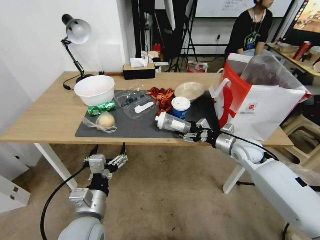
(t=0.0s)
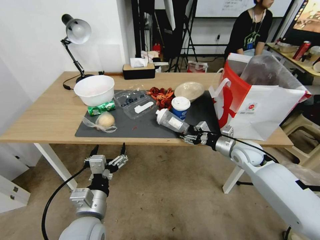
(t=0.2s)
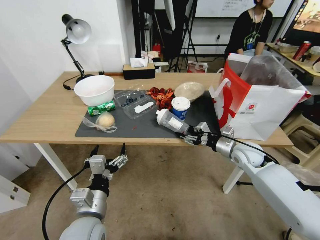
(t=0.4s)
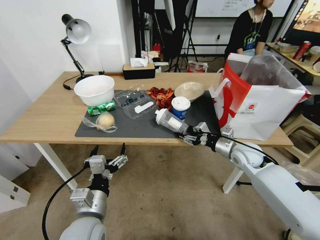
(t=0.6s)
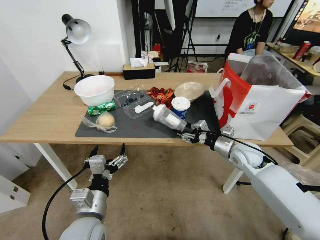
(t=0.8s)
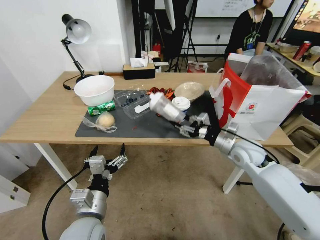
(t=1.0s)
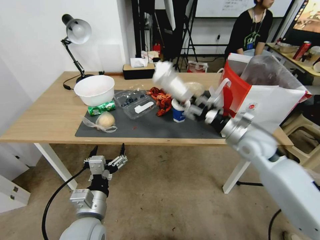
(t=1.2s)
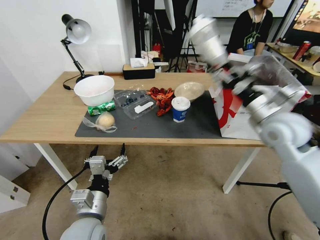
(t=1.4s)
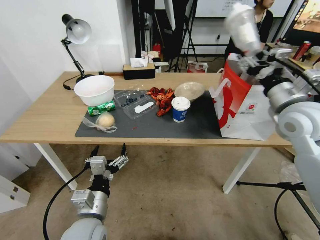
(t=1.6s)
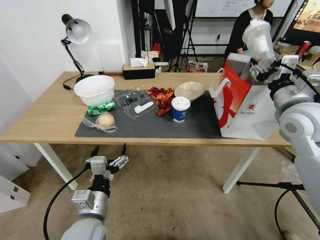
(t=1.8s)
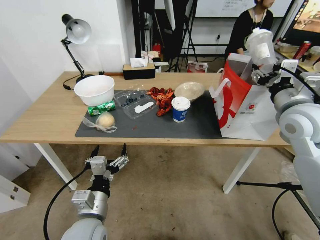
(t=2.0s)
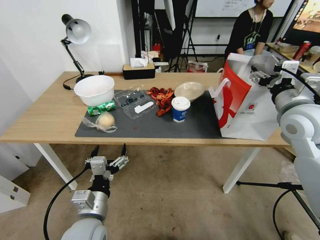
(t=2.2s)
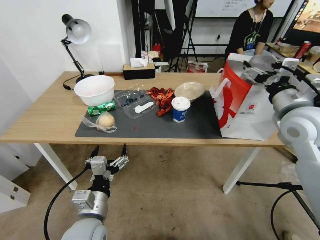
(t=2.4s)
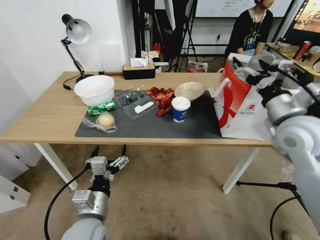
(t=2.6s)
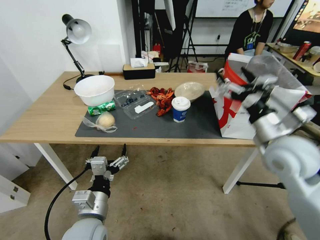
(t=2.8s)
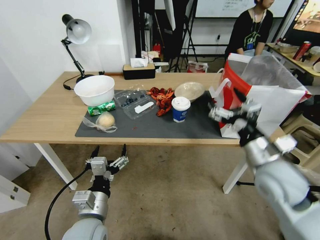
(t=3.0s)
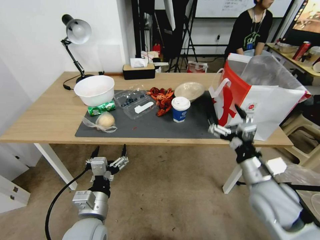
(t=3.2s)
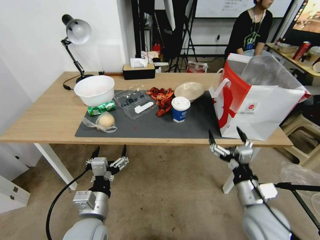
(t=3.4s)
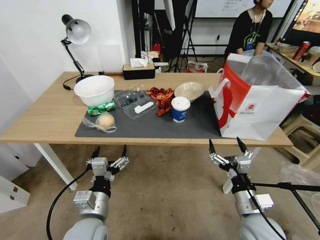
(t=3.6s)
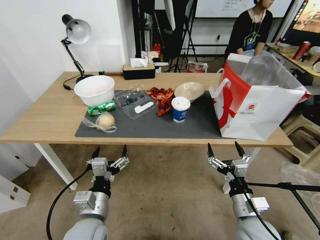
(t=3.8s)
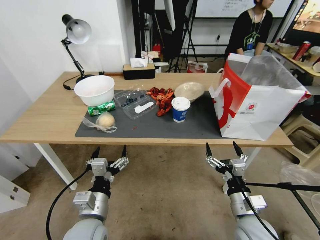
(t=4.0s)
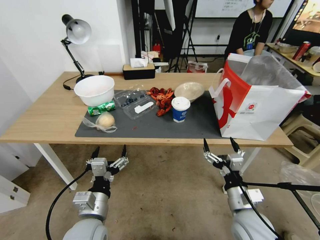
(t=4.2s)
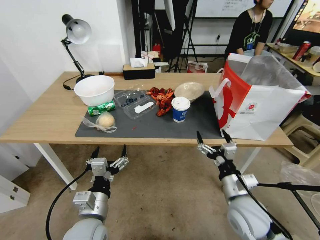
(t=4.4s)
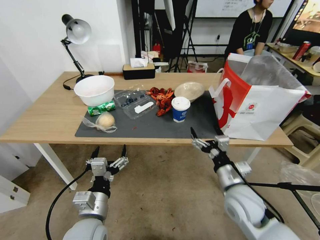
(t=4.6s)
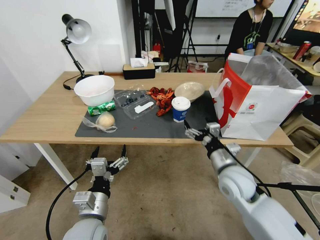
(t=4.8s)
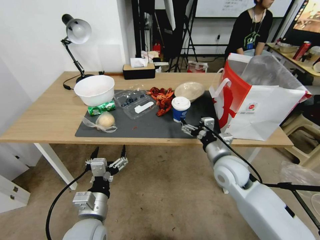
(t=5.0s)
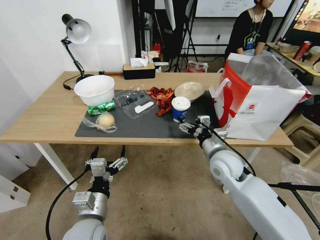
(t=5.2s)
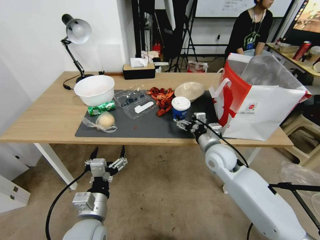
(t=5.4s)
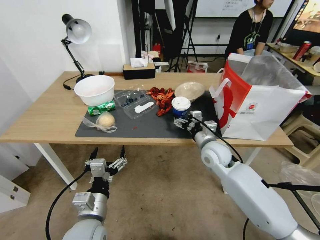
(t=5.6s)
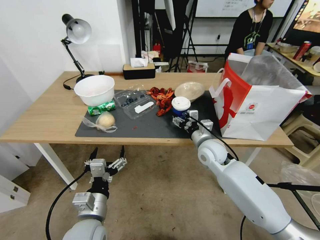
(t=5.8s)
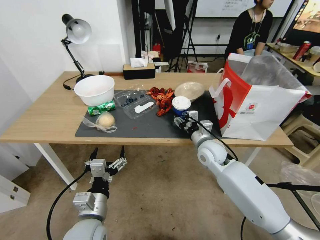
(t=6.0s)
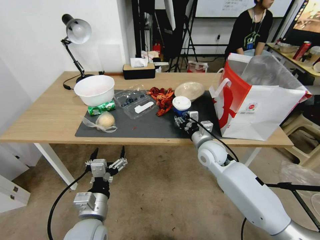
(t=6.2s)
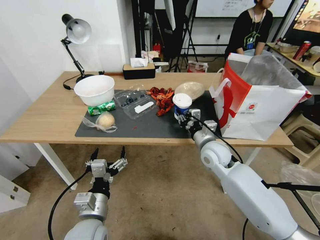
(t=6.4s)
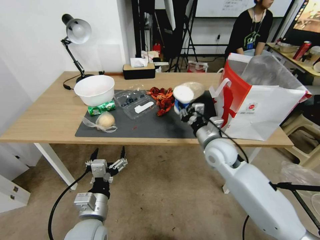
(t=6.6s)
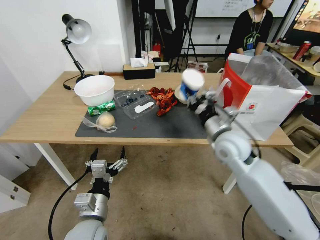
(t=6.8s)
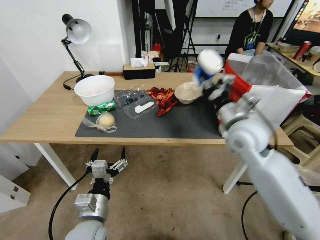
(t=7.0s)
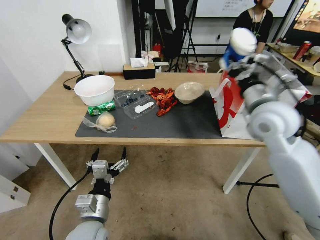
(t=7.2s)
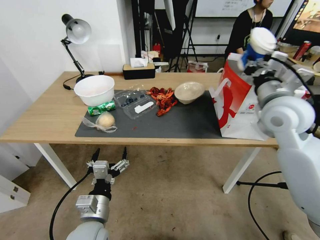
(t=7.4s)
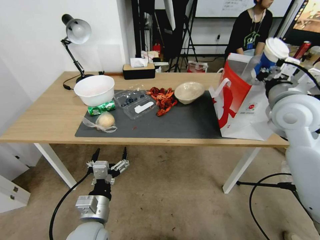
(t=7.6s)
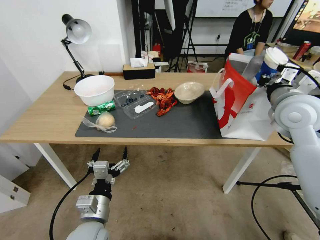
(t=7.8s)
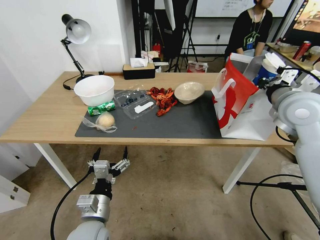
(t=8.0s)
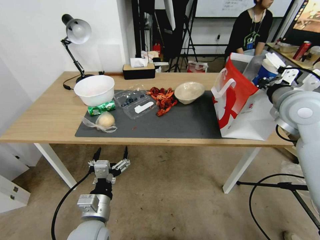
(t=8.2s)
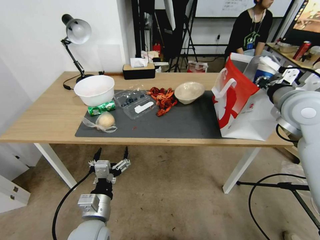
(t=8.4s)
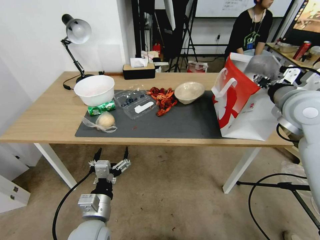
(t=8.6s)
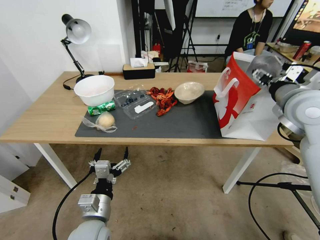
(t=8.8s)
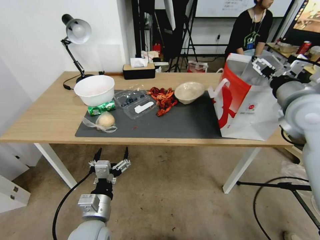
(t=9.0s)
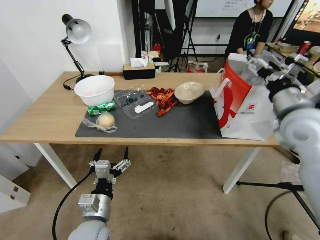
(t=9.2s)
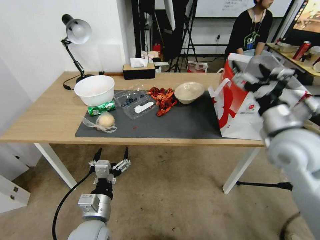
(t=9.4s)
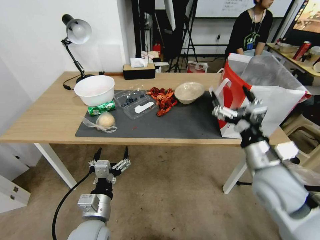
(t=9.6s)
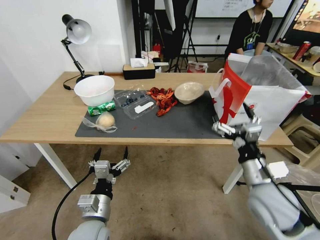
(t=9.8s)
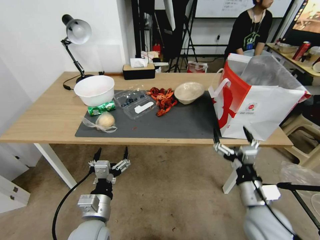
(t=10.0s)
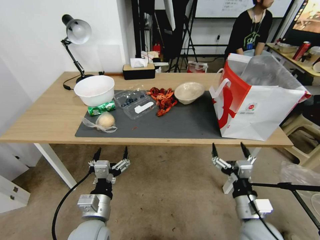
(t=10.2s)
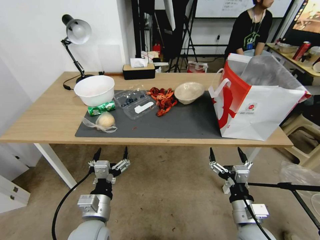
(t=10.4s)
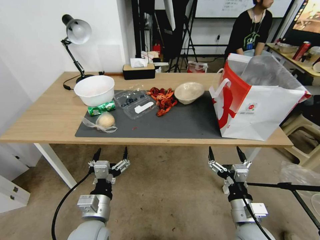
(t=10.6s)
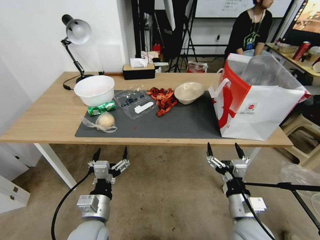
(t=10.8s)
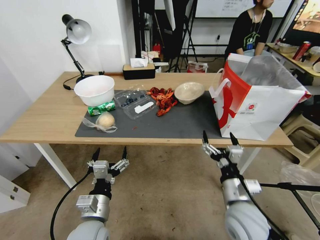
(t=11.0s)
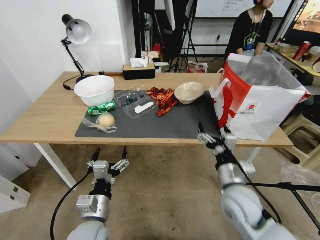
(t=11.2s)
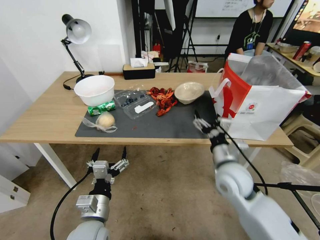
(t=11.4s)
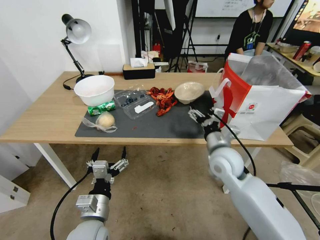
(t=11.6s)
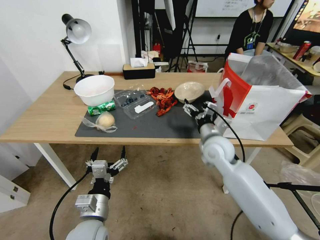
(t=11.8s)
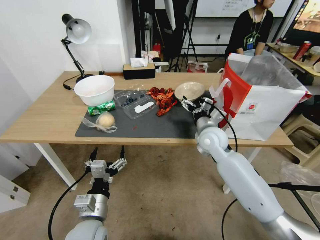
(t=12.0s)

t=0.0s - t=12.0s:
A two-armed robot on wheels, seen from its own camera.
t=0.0s - t=1.6s: The right gripper is displaced upward by roughly 20 cm.
t=1.6s - t=3.0s: The right gripper moves downward, backward and to the left, some 15 cm, and opens up.
t=3.0s - t=4.4s: The right gripper shifts approximately 15 cm downward and backward.
t=4.4s - t=6.0s: The right gripper is displaced forward by some 20 cm, and closes up.
t=6.0s - t=7.6s: The right gripper moves upward and to the right, about 25 cm, and closes up.
t=7.6s - t=9.0s: The right gripper opens.
t=9.0s - t=10.4s: The right gripper goes approximately 35 cm downward and backward.
t=10.4s - t=12.0s: The right gripper heads forward, covering approximately 25 cm.

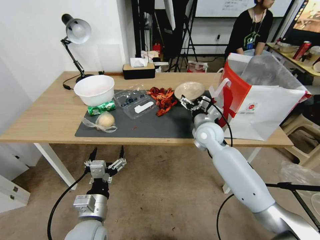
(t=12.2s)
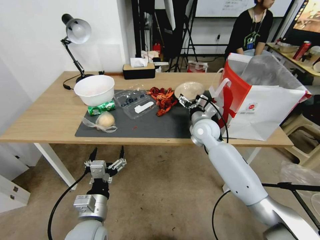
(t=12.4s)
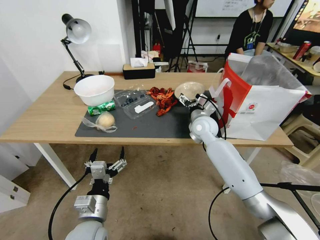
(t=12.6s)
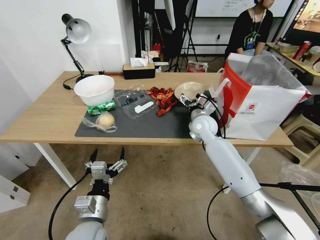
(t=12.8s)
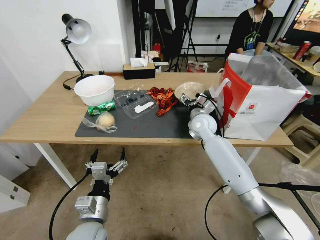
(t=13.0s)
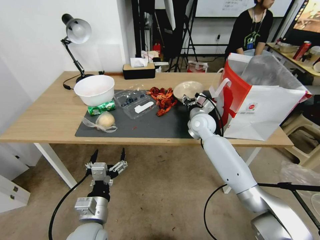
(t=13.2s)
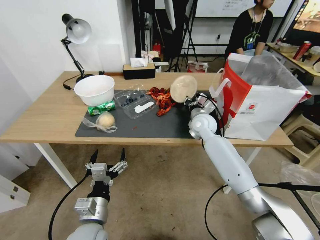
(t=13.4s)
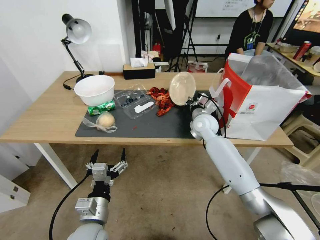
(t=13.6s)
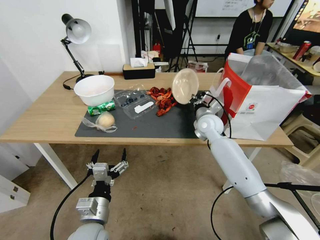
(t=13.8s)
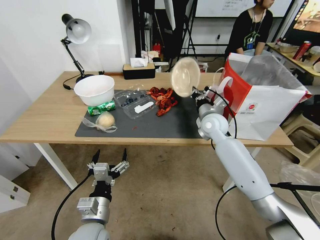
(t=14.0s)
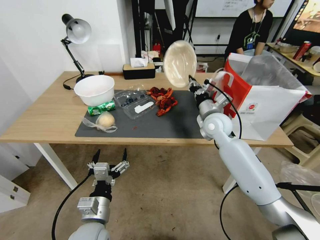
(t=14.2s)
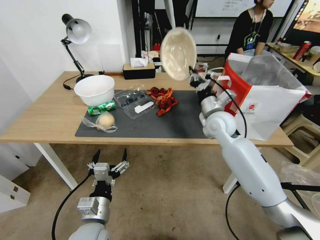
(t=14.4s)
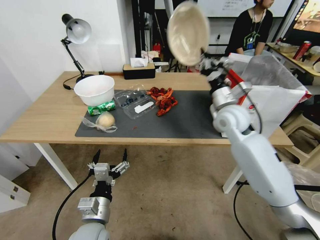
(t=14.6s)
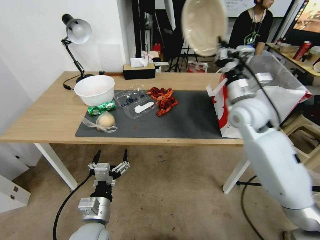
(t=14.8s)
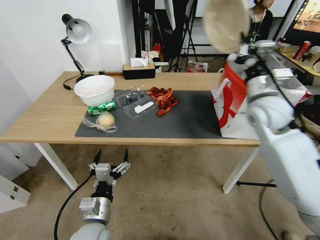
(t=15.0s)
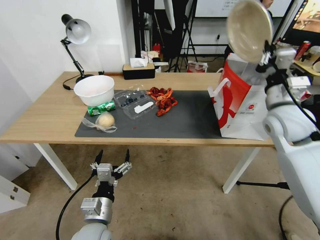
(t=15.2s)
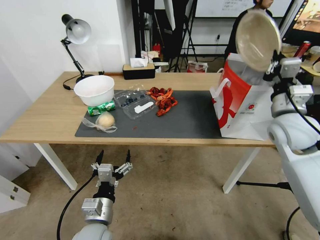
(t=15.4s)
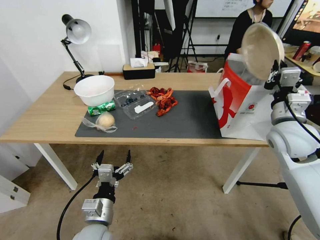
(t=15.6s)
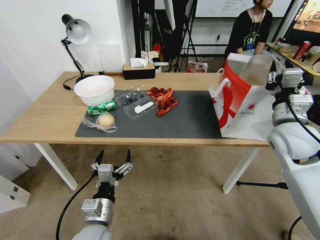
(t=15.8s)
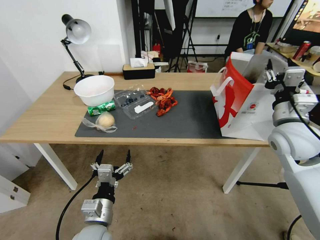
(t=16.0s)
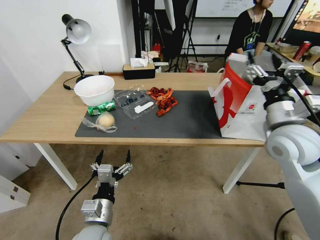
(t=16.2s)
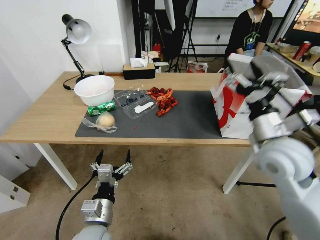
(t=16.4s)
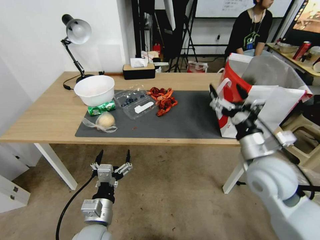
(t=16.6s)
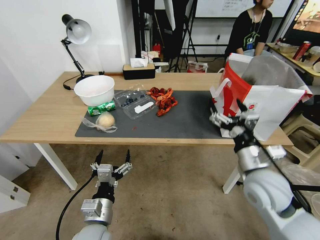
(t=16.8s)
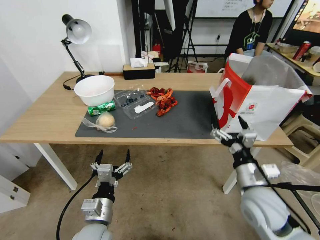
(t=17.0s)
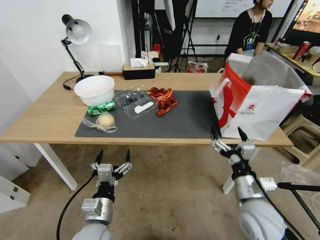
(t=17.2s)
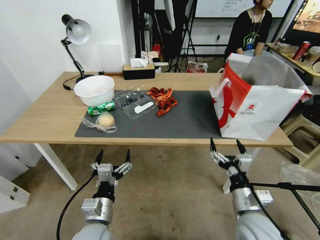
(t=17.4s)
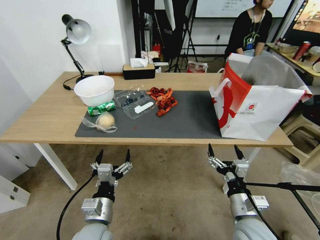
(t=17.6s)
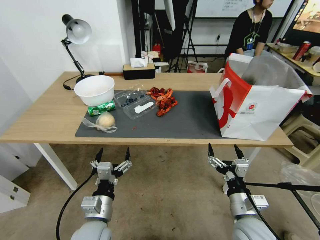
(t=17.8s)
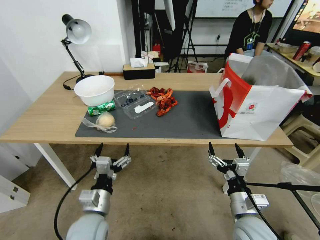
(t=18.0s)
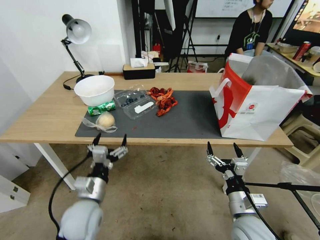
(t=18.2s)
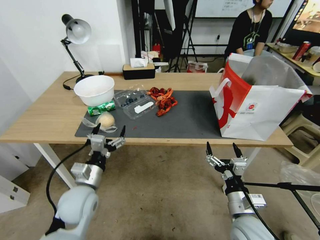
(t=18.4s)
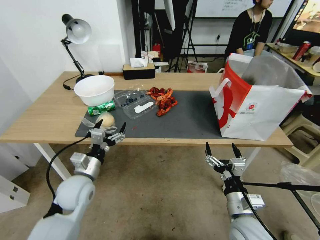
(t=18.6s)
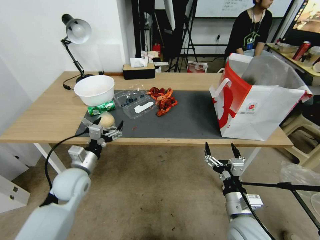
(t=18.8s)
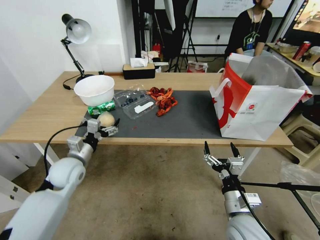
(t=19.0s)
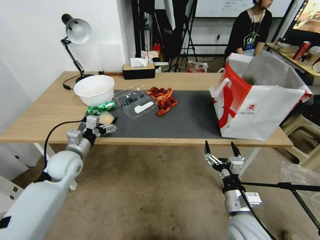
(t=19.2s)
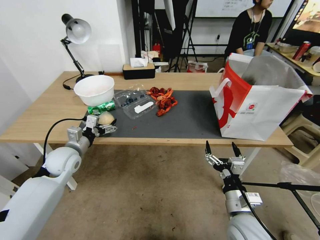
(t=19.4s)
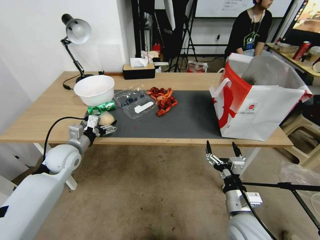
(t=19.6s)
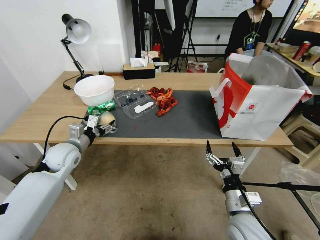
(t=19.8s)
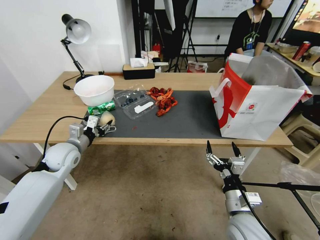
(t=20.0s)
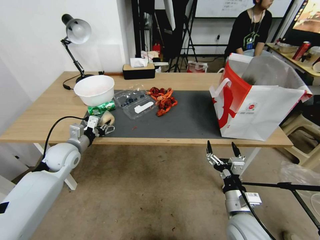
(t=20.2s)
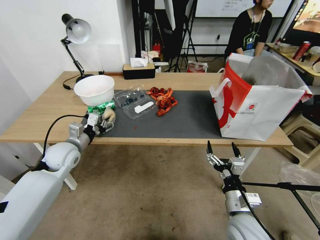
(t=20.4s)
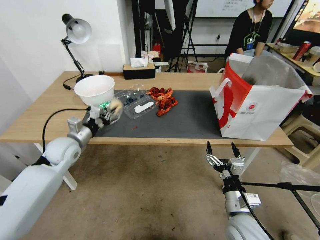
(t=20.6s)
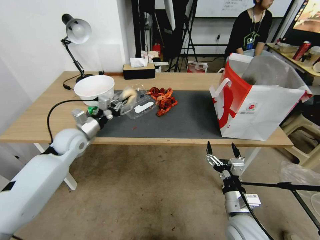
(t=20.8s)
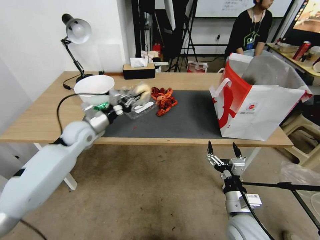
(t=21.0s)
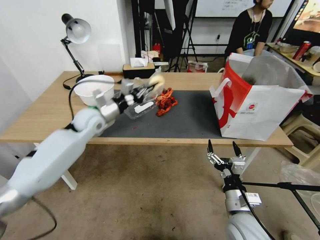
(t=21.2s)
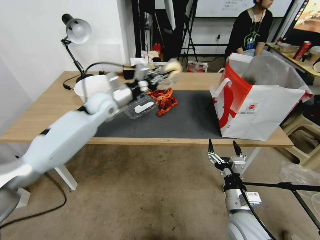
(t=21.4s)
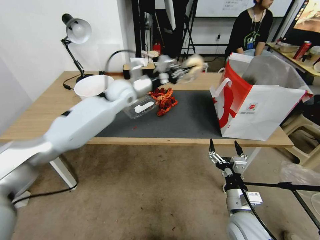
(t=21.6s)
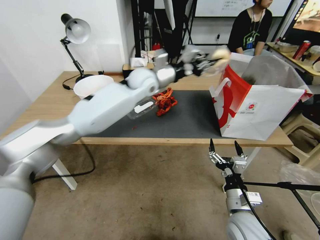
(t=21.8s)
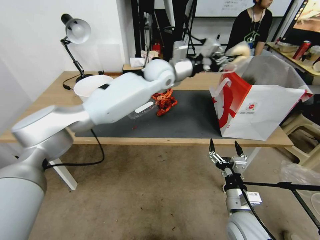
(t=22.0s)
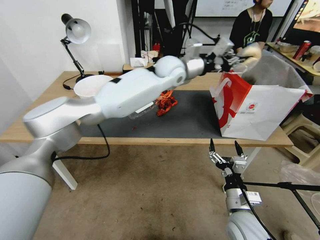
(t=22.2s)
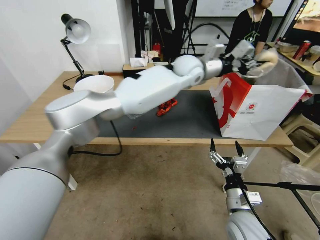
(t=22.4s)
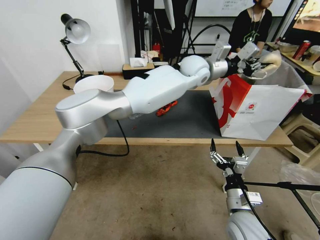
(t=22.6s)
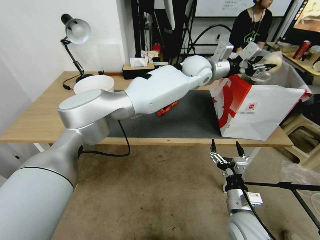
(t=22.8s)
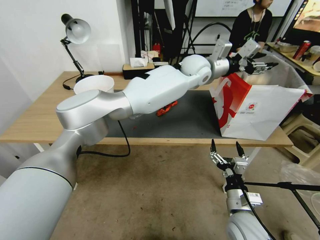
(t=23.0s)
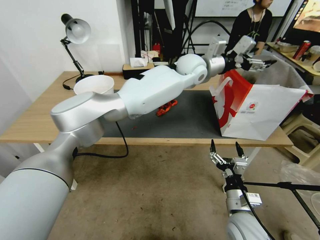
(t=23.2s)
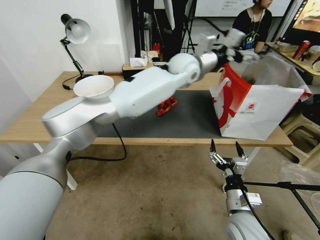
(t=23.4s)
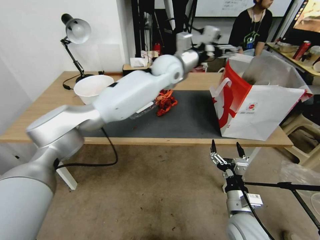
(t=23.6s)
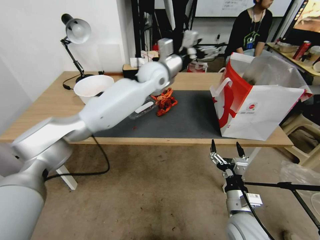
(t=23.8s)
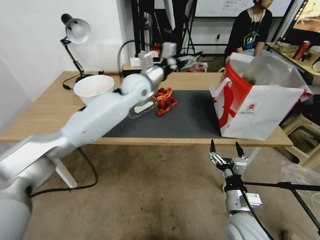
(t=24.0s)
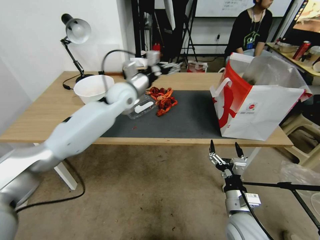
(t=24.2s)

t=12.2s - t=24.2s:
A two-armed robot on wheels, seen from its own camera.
t=12.2s - t=13.8s: The right gripper shifts by roughly 5 cm, and closes up.
t=13.8s - t=15.2s: The right gripper heads upward, to the right and backward, covering some 25 cm.
t=15.2s - t=16.6s: The right gripper moves backward, to the left and downward, some 15 cm, and opens.
t=16.6s - t=18.2s: The right gripper travels downward and backward by about 20 cm. Meanwhile the left gripper heads forward, covering some 5 cm.
t=18.2s - t=19.8s: The left gripper is displaced forward and to the left by approximately 20 cm.
t=19.8s - t=21.2s: The left gripper moves forward, to the right and upward, about 15 cm, and closes its fingers.
t=21.2s - t=22.6s: The left gripper heads to the right, covering some 35 cm.
t=22.6s - t=24.2s: The left gripper heads to the left, covering about 25 cm, and opens up.
